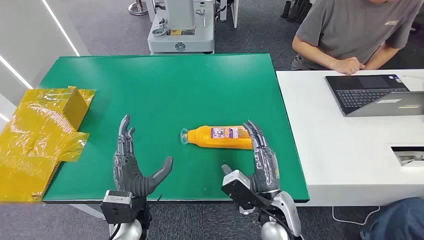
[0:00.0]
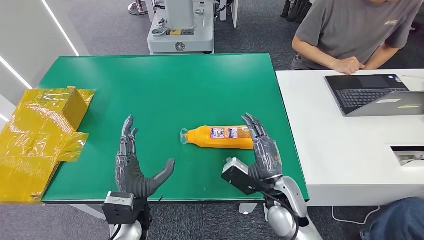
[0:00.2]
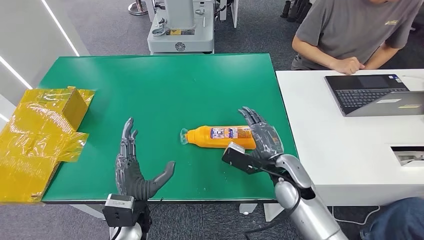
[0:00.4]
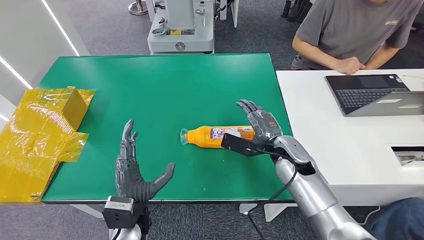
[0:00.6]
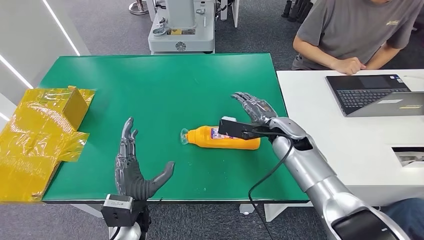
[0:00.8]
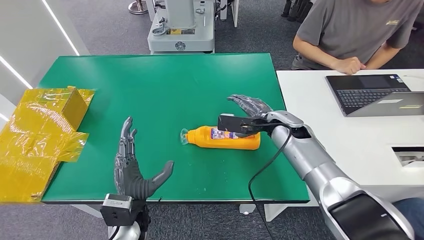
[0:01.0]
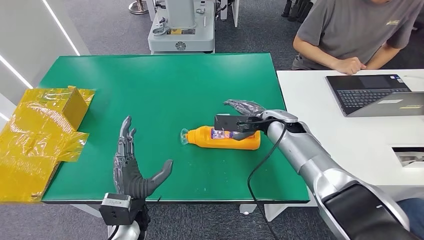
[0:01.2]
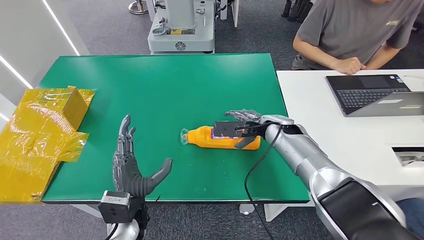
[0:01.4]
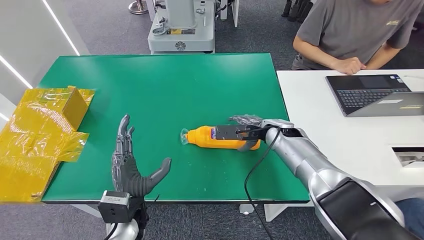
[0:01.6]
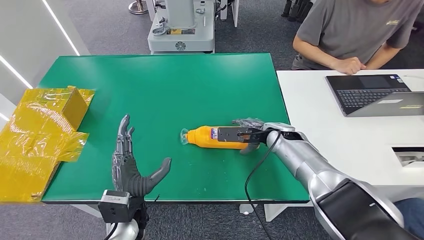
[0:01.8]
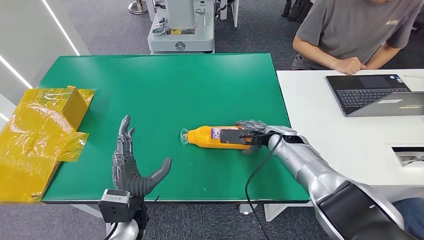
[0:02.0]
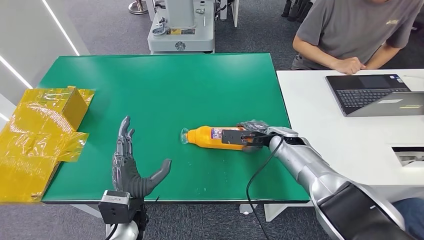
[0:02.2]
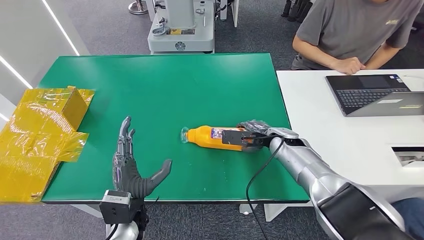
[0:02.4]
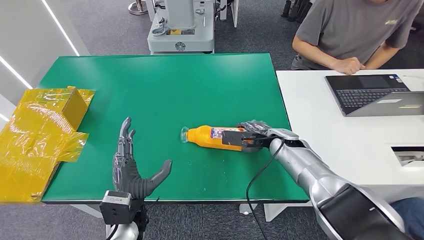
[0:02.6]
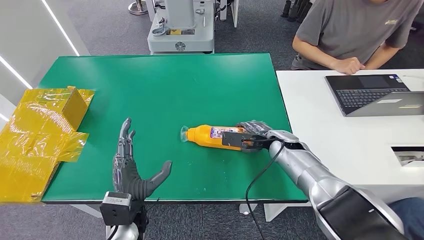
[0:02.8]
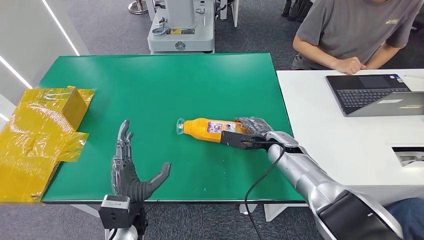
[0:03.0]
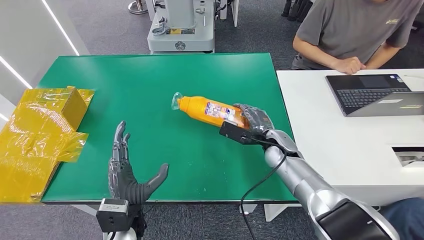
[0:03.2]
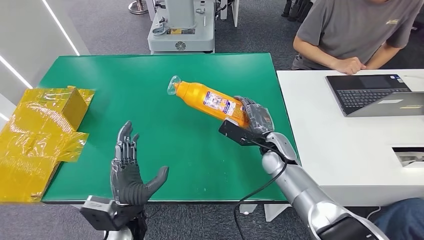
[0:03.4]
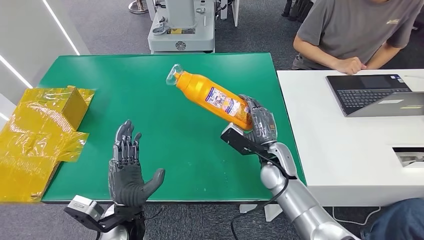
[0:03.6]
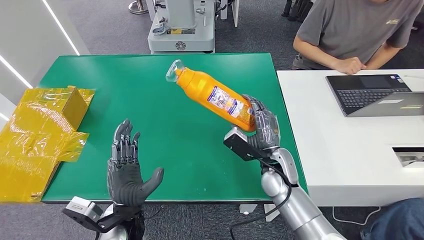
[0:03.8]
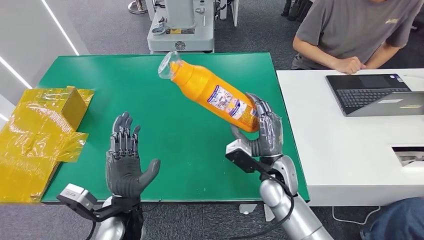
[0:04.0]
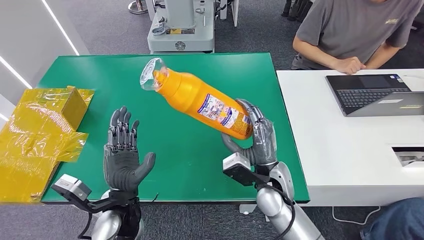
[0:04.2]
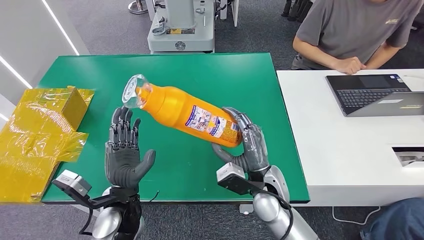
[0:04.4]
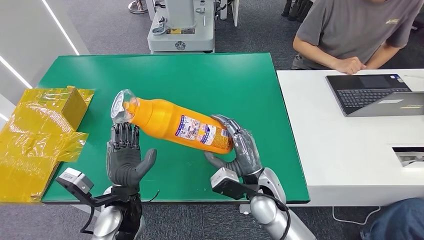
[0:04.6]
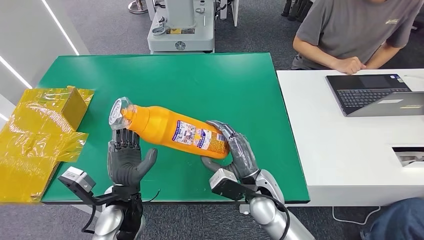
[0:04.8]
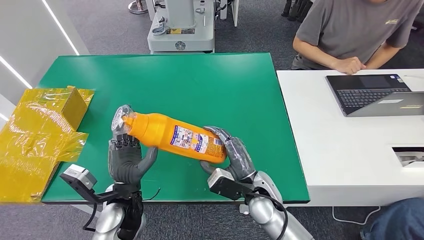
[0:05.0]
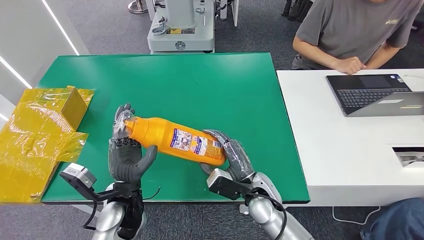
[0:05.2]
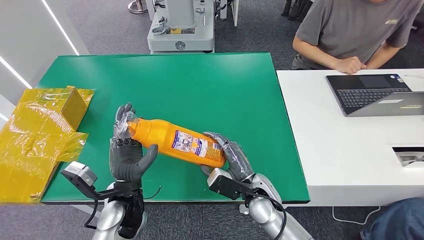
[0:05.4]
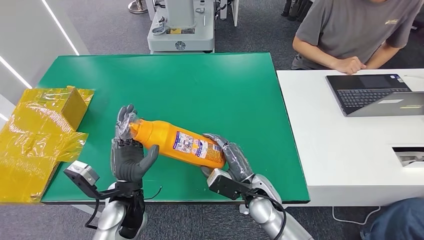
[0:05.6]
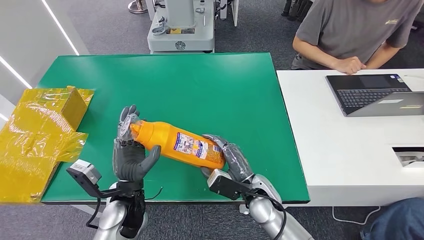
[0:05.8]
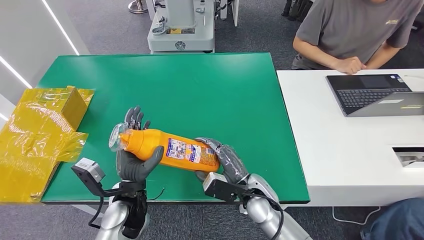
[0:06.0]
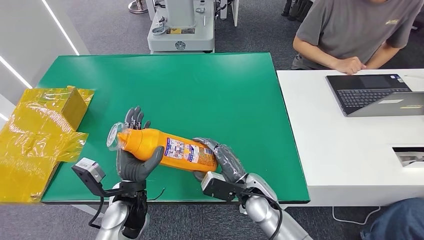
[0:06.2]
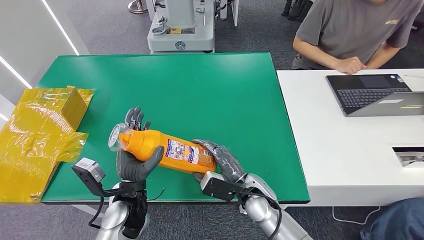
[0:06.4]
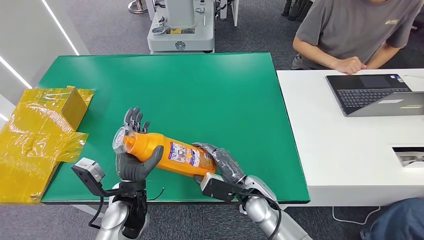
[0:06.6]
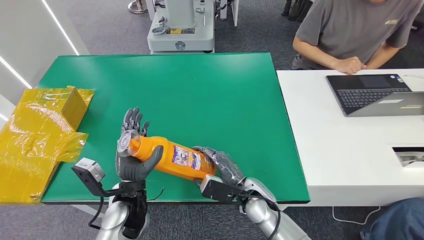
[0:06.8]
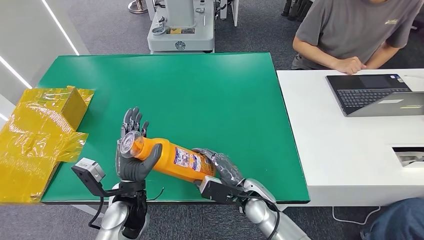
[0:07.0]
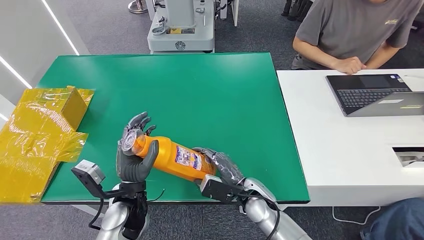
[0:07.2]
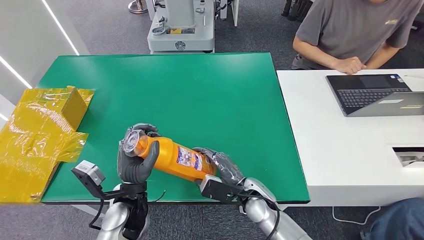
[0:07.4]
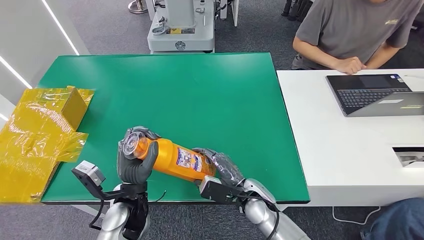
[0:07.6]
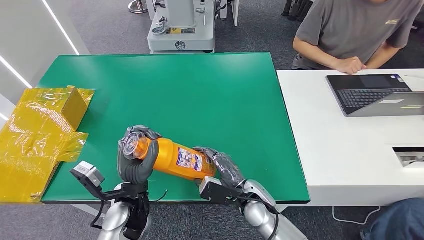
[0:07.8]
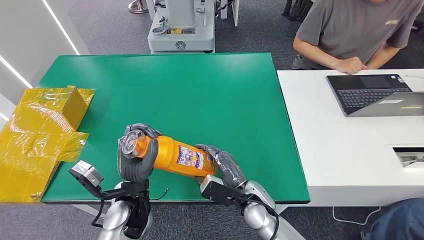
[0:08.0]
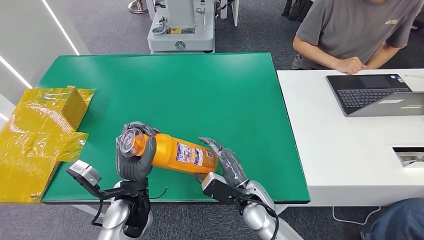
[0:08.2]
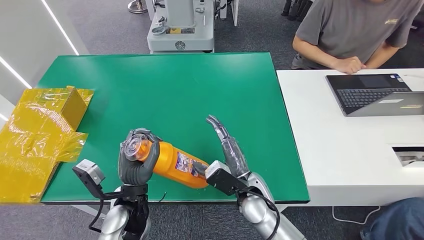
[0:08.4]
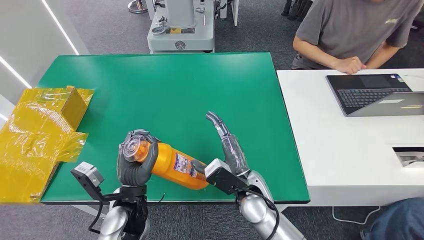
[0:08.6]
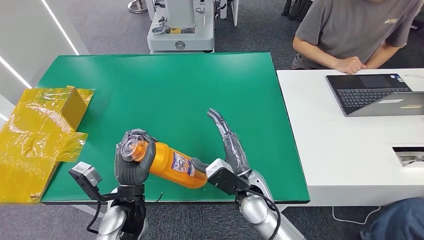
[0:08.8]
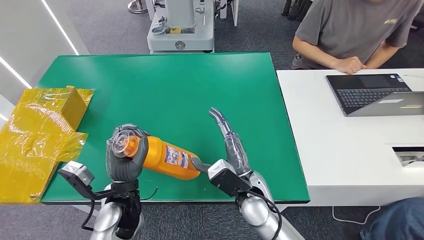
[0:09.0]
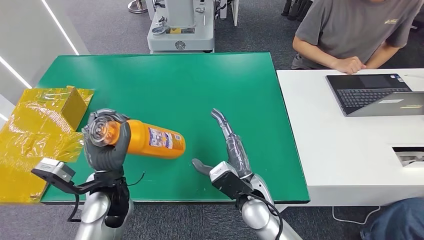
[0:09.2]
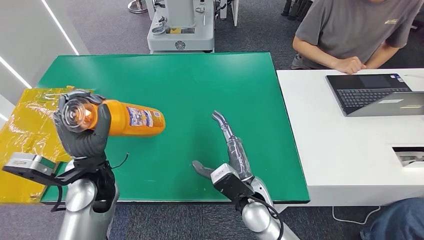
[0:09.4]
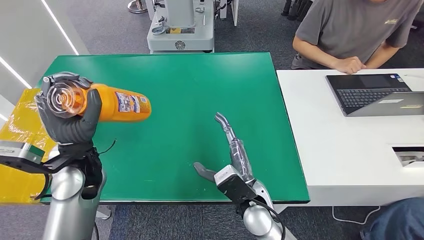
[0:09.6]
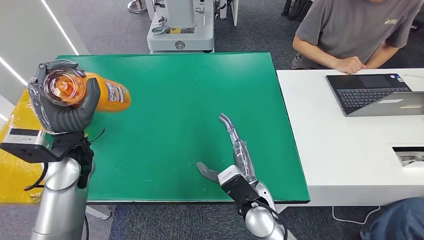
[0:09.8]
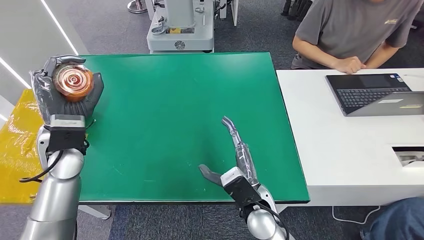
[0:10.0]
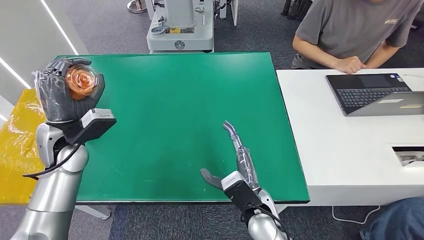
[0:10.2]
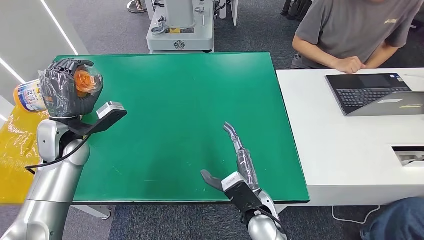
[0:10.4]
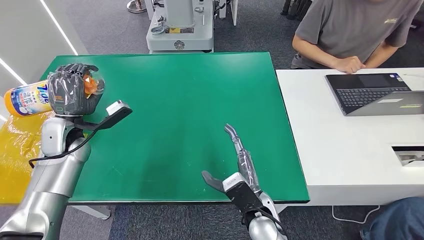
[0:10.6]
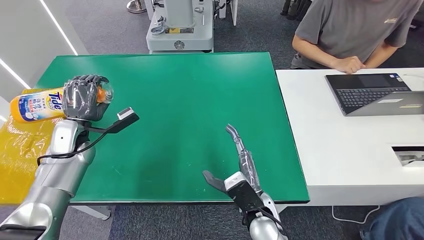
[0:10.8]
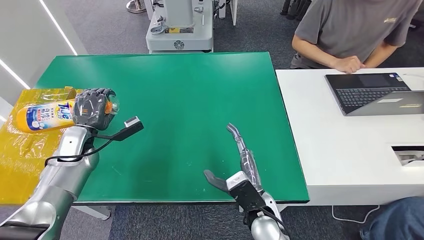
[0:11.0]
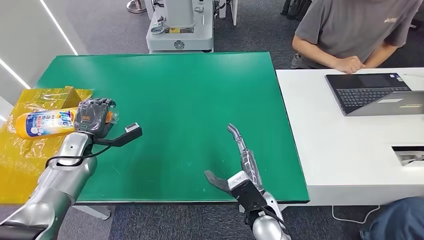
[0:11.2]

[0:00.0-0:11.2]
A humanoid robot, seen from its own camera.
Step, 0.0 to 4.0 s: Pick up the bottle from the table.
Step, 8.0 to 11.0 s: Turn the bottle to the front side.
1.6 to 3.2 s: The right hand ends up some 5 cm from where it was.
3.2 to 4.8 s: The right hand moves backward and to the left, approximately 15 cm.
6.4 to 8.0 s: The hands stay close to where they were, moving slightly.
8.0 to 9.6 s: The right hand moves upward, approximately 5 cm. The left hand heads upward, to the left and forward, covering roughly 15 cm.
9.6 to 11.2 s: The left hand goes roughly 20 cm to the left, downward and forward.

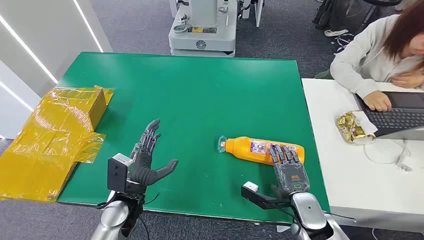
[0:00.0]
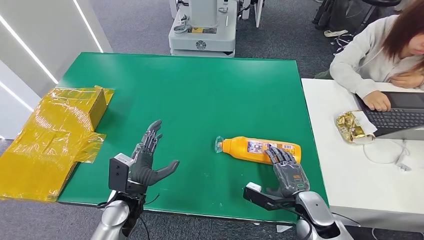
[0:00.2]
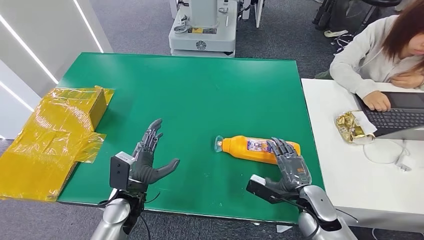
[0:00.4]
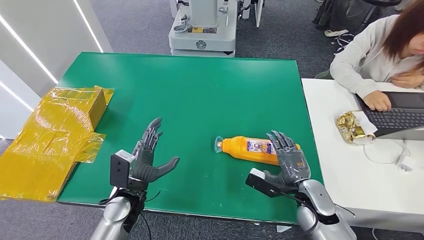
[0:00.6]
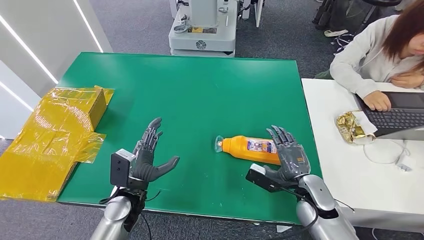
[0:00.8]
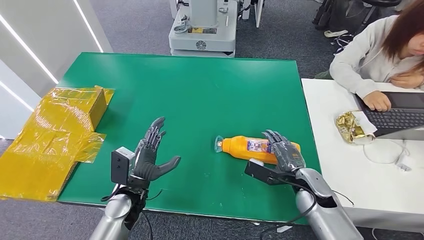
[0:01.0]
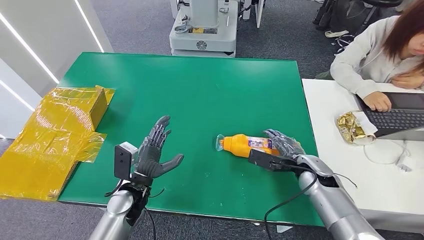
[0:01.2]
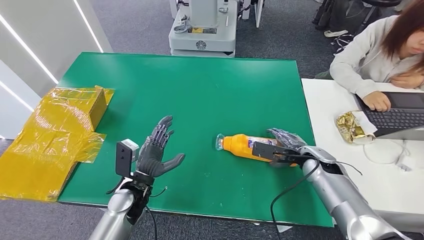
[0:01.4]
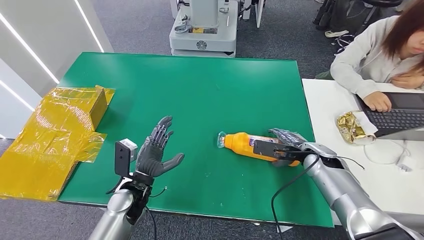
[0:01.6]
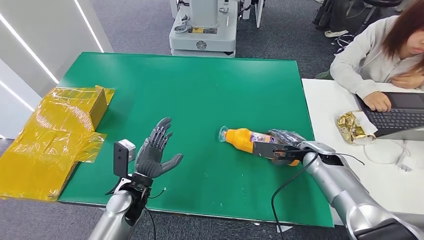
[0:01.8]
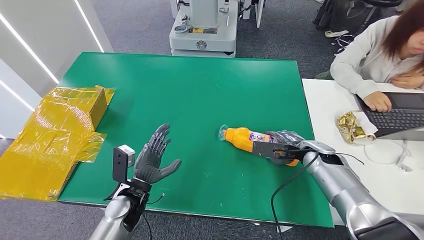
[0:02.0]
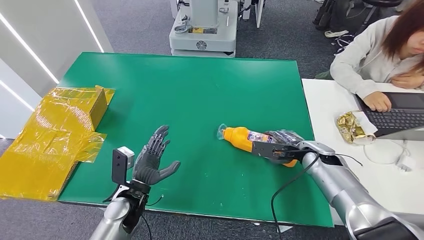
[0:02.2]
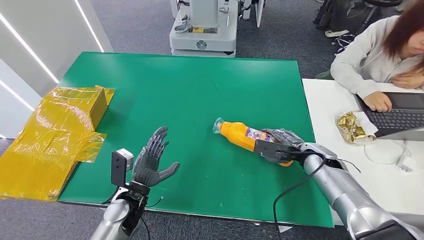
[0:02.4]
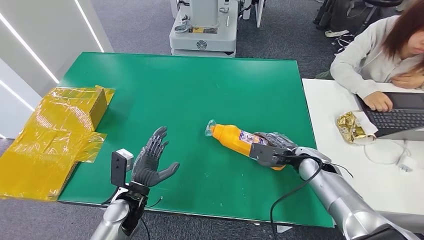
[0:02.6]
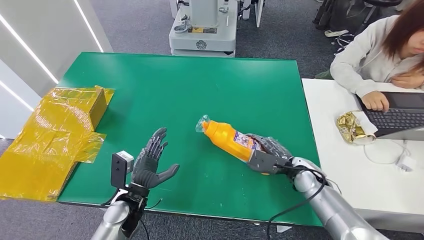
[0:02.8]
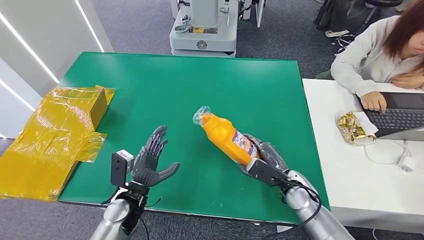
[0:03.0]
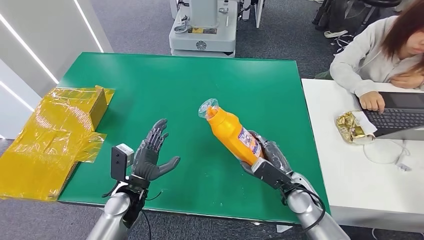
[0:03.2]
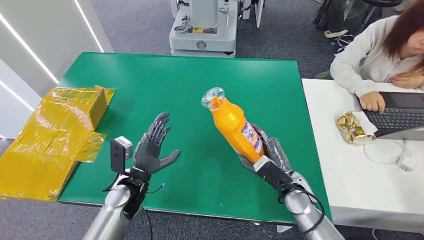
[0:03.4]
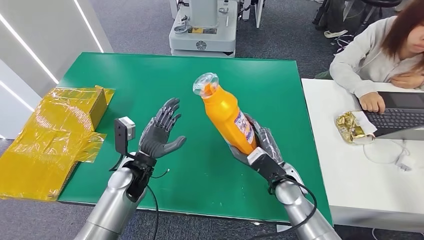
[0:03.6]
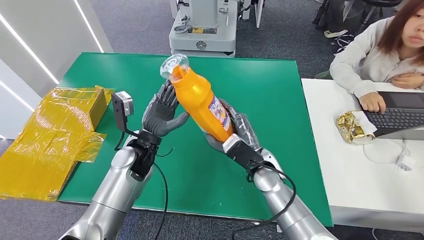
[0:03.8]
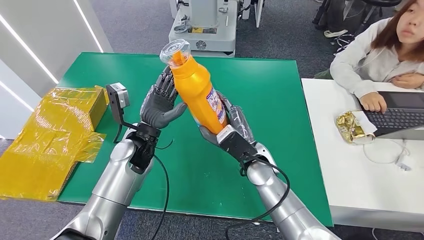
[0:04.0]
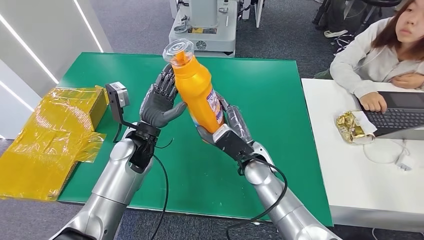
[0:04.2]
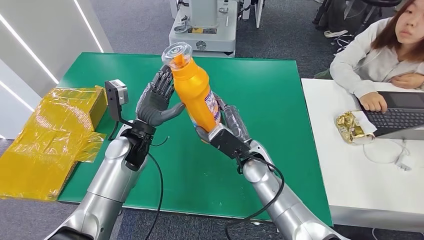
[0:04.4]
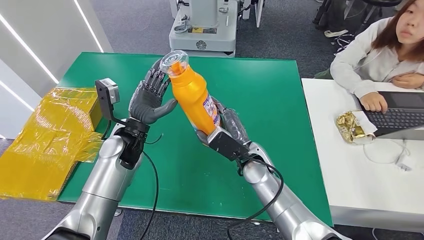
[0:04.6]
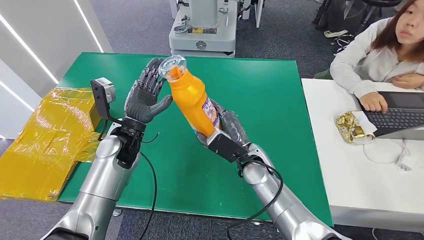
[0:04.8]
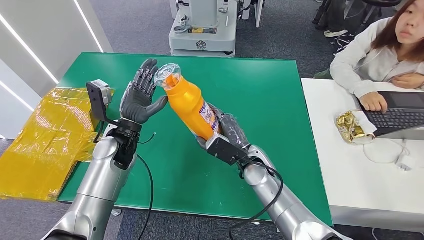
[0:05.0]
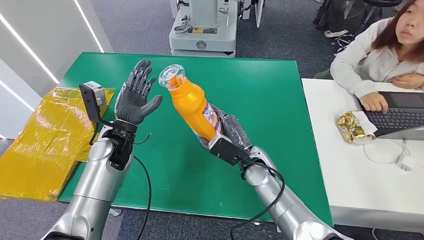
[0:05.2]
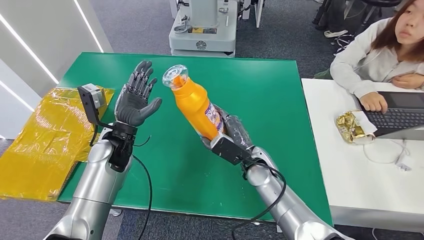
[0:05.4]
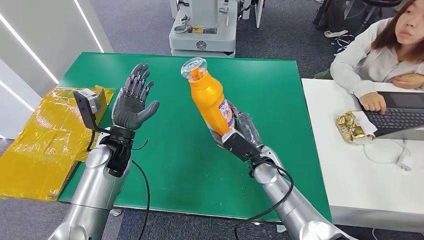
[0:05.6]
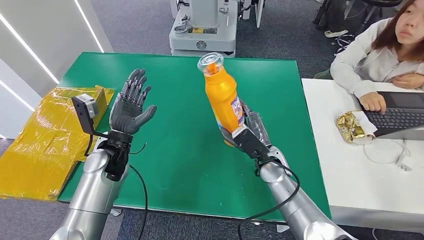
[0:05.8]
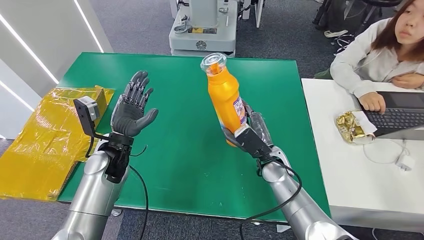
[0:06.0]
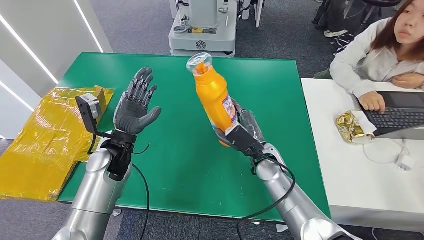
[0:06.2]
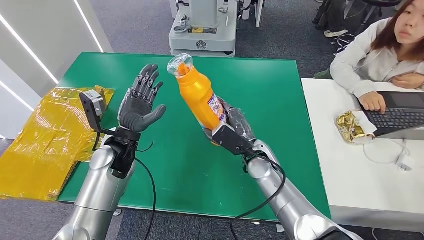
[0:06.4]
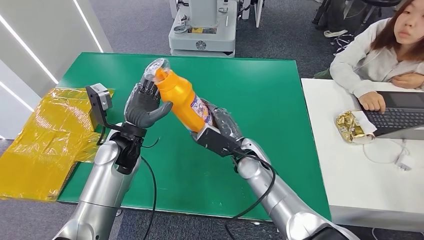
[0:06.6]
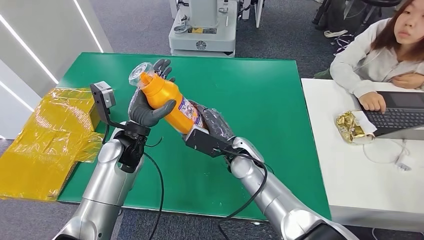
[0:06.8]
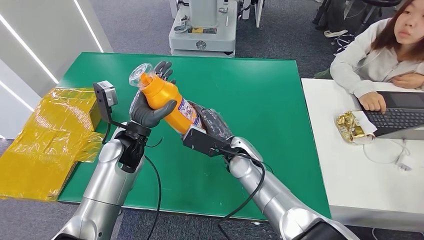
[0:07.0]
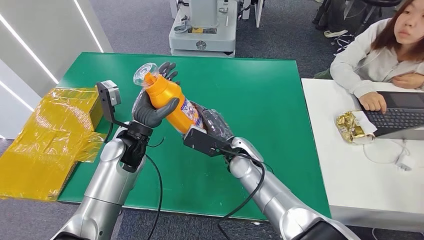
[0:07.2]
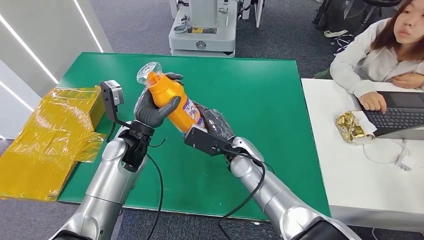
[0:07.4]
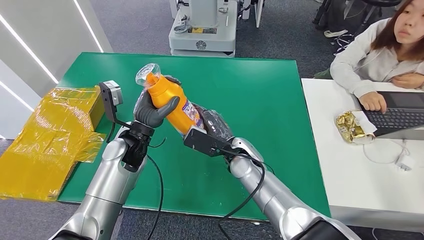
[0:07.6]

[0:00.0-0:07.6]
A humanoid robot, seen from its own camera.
Step, 0.0 to 4.0 s: Pick up the bottle from the table.
1.6 to 3.0 s: The right hand is displaced backward, downward and to the left by some 10 cm.
4.6 to 6.0 s: The left hand moves about 5 cm. Meanwhile the right hand travels to the right by about 5 cm.
6.0 to 7.6 s: The right hand moves to the left, roughly 10 cm. The left hand moves roughly 5 cm.
